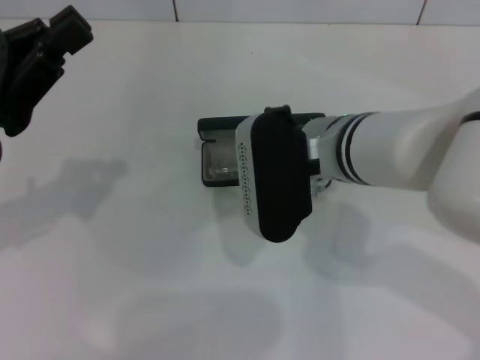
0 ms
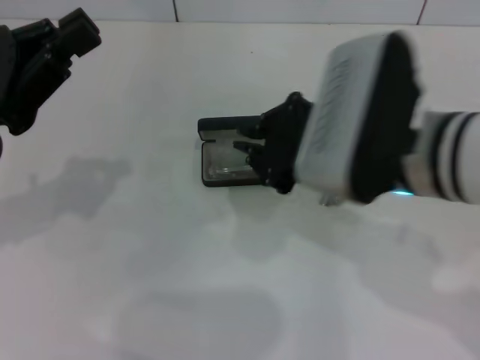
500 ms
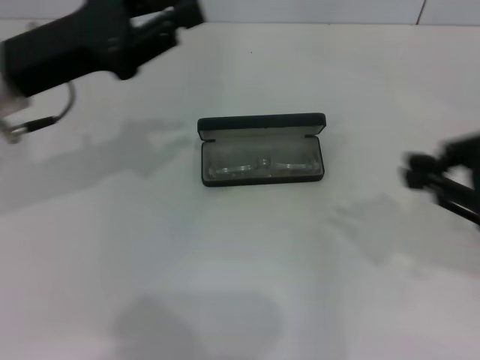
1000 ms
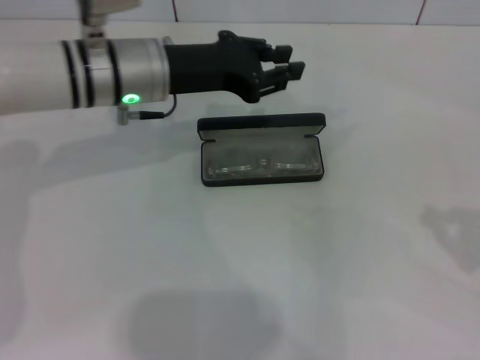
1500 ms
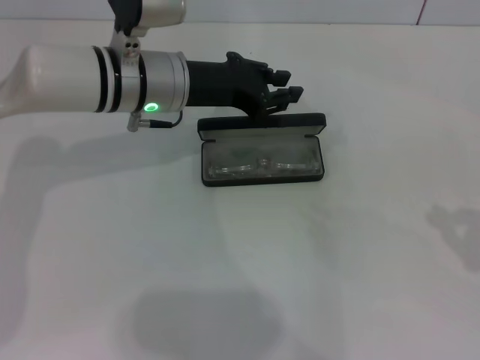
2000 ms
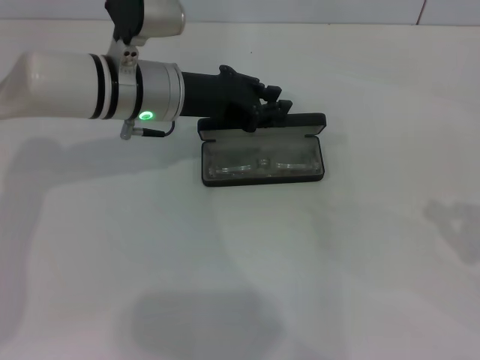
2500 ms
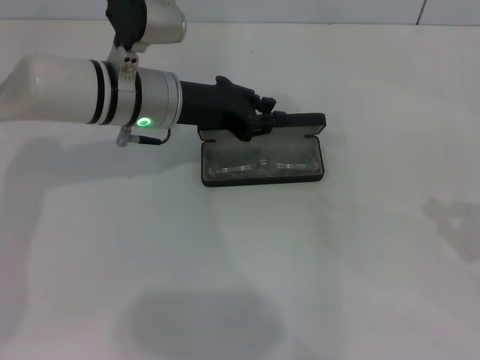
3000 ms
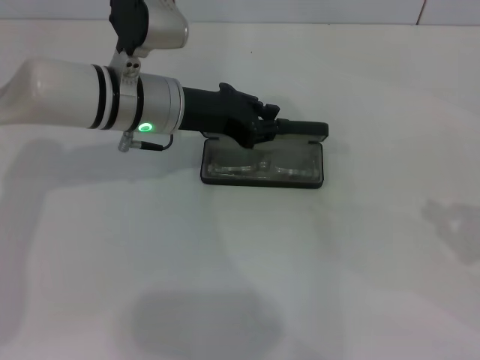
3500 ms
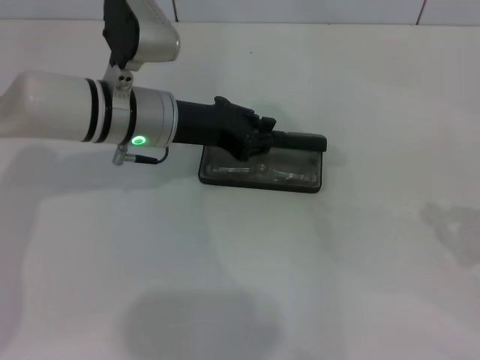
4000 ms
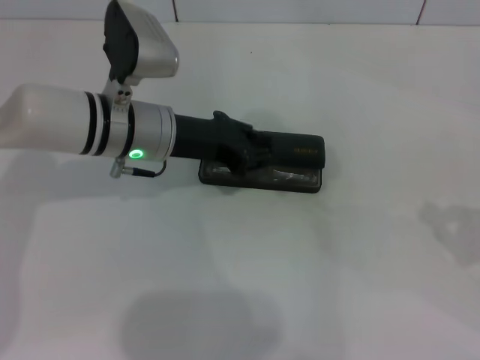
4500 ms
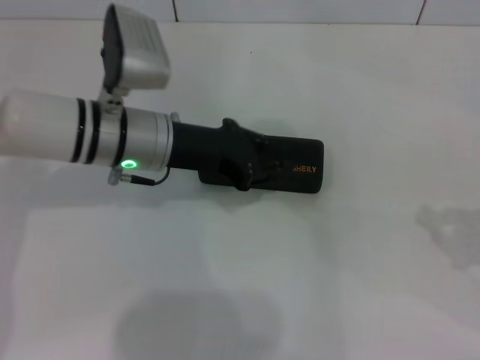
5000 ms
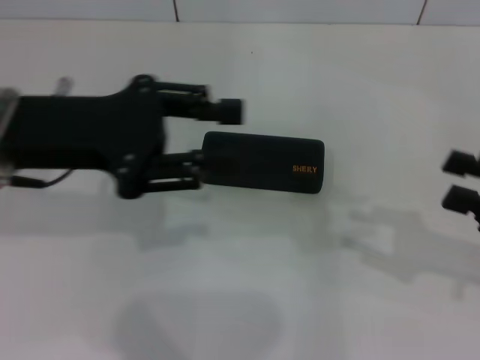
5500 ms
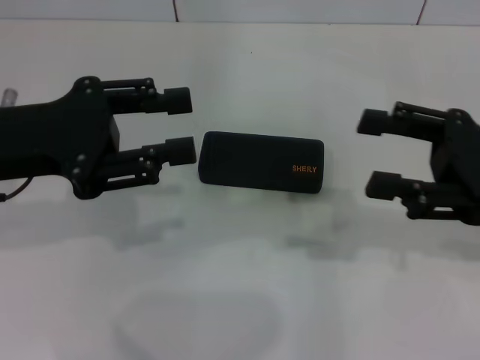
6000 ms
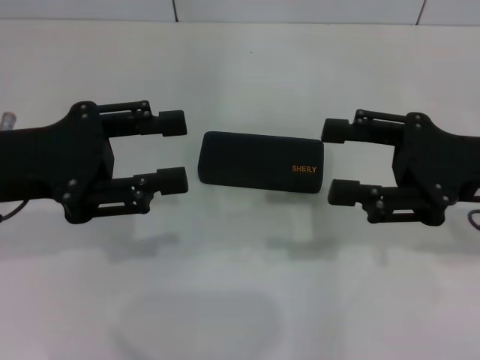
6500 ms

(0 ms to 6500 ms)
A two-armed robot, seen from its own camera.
Step, 0 ms - 4500 ms: Close the glasses case with your left hand.
0 ms - 2000 ms: The right gripper goes approximately 35 cm to the right, while the left gripper goes about 20 cm to the right and forward.
2000 ms - 4500 ms: The grippers move only a little.
4500 ms - 6500 ms: The left gripper goes approximately 20 cm to the left, backward and upward, and opens its fingers. The right gripper heads to the left and forward, covering roughly 15 cm, and opens.
